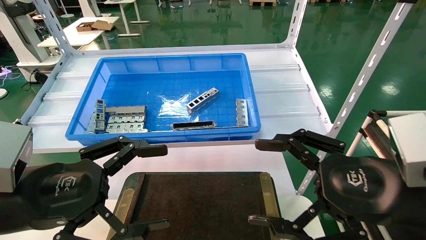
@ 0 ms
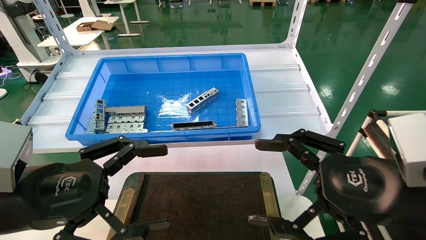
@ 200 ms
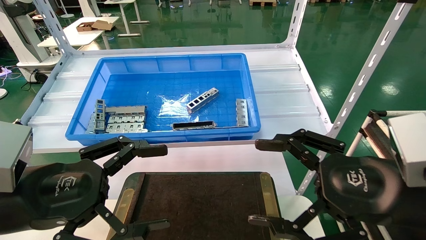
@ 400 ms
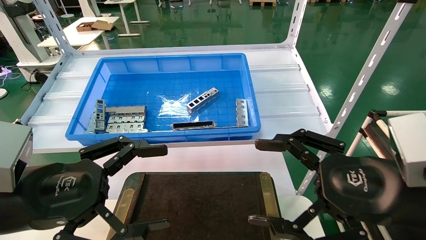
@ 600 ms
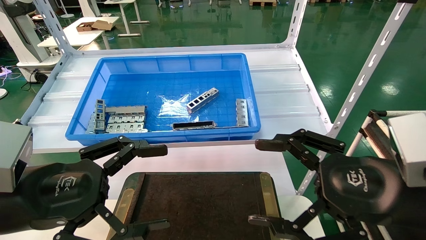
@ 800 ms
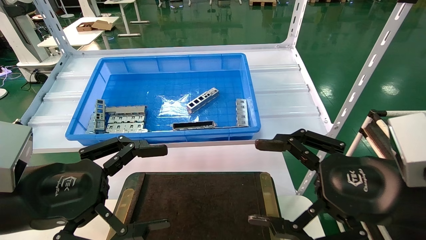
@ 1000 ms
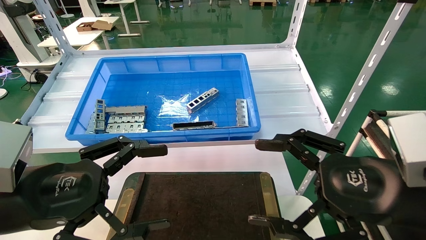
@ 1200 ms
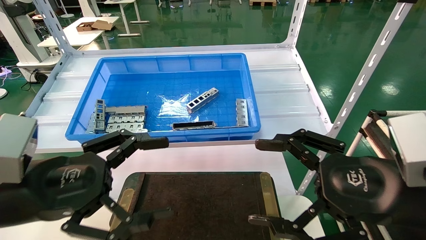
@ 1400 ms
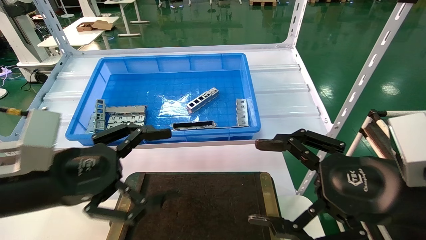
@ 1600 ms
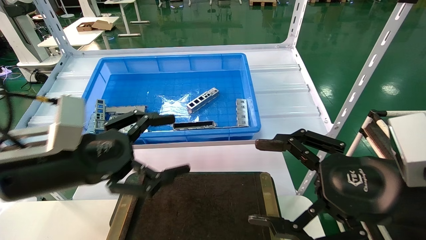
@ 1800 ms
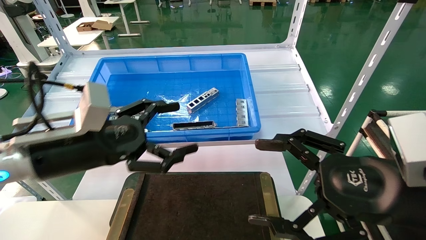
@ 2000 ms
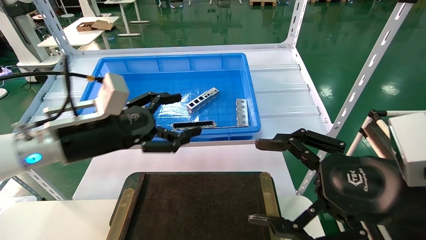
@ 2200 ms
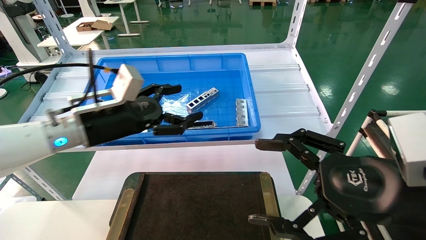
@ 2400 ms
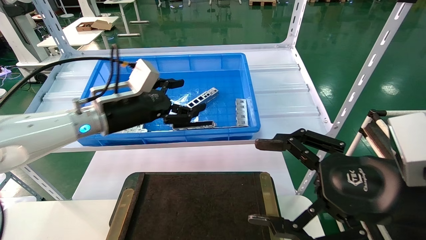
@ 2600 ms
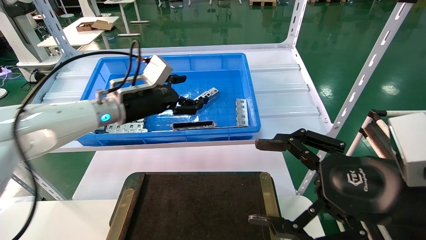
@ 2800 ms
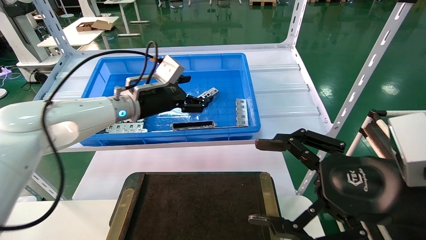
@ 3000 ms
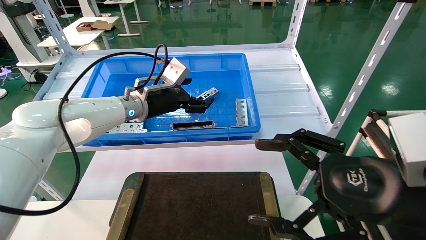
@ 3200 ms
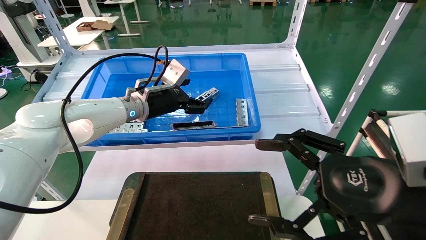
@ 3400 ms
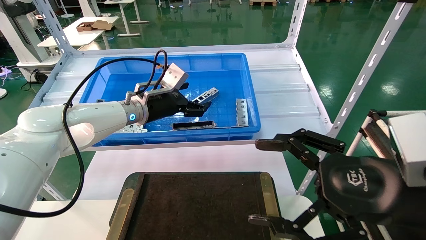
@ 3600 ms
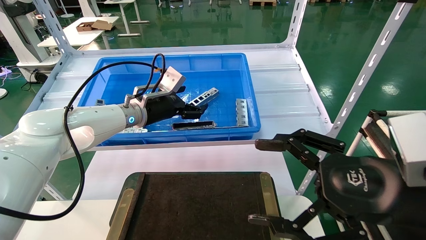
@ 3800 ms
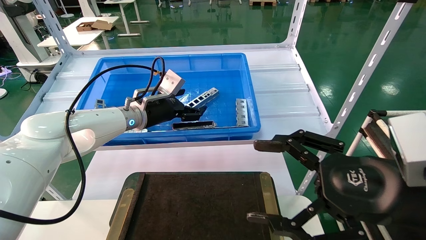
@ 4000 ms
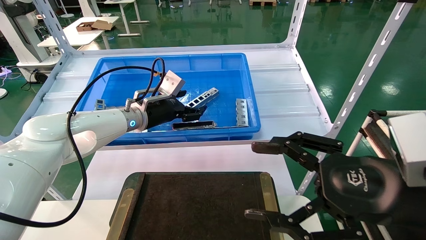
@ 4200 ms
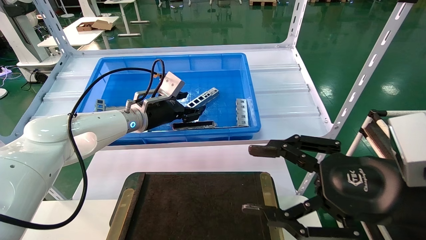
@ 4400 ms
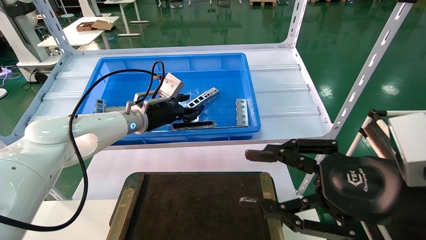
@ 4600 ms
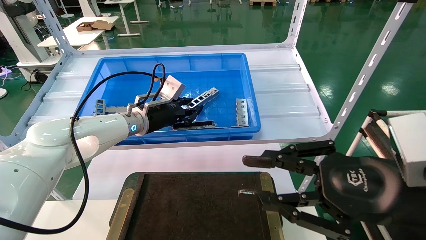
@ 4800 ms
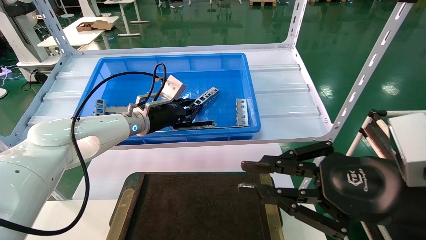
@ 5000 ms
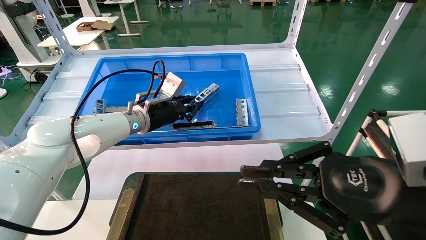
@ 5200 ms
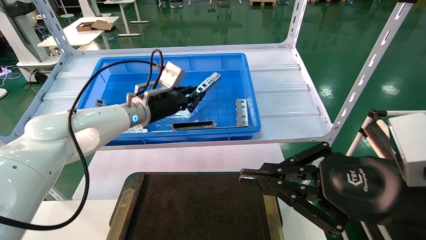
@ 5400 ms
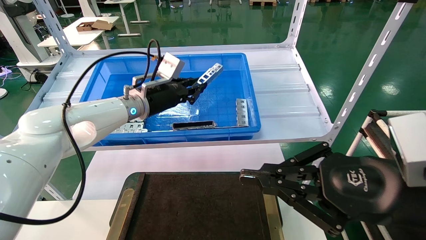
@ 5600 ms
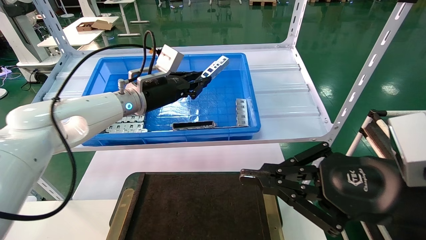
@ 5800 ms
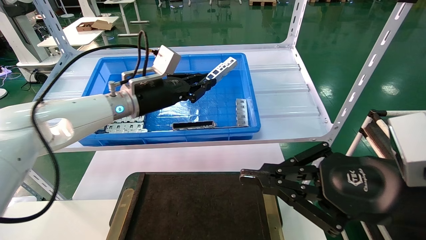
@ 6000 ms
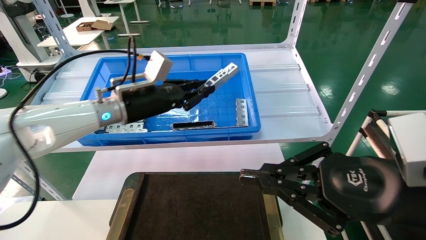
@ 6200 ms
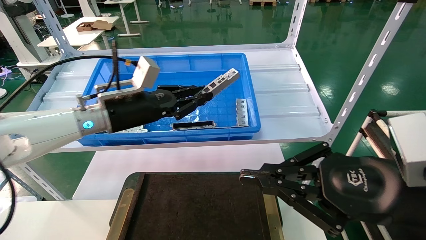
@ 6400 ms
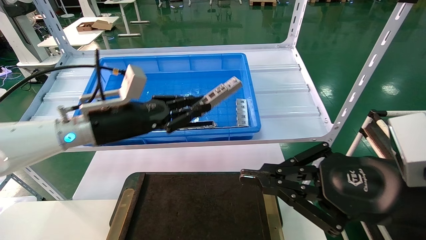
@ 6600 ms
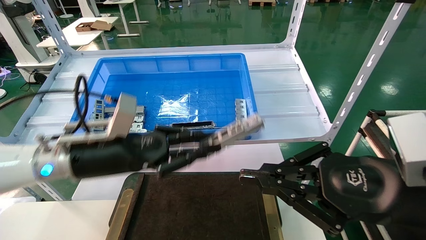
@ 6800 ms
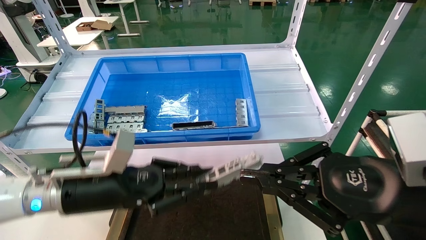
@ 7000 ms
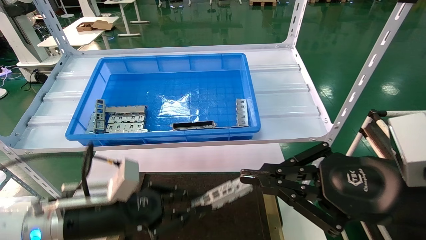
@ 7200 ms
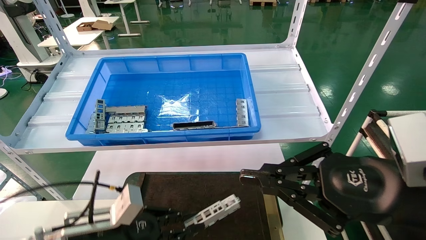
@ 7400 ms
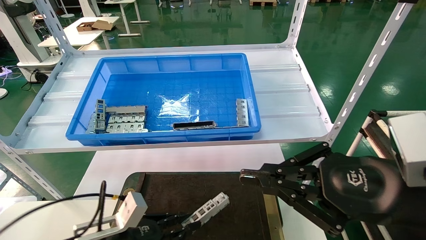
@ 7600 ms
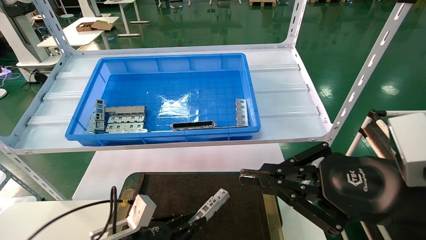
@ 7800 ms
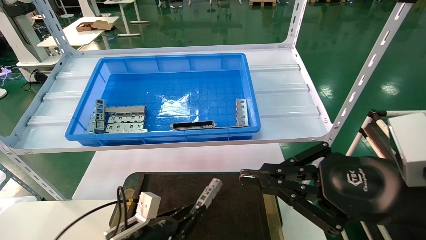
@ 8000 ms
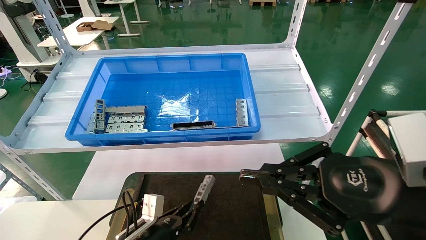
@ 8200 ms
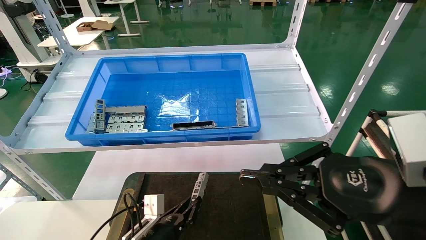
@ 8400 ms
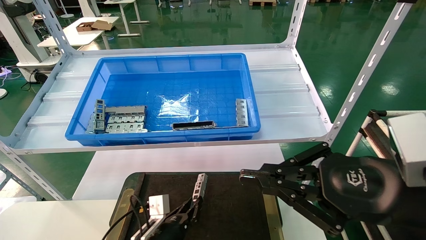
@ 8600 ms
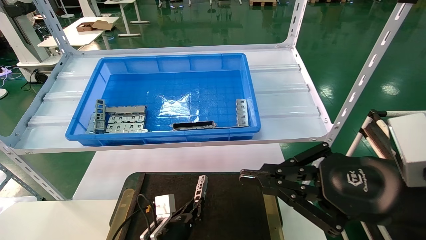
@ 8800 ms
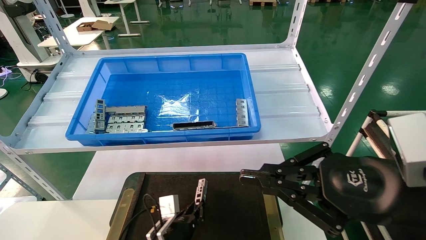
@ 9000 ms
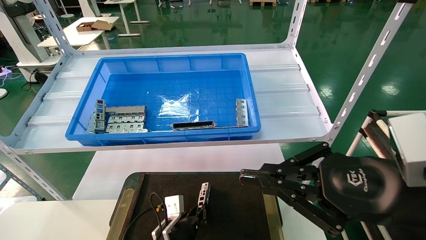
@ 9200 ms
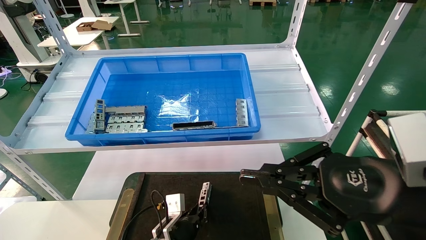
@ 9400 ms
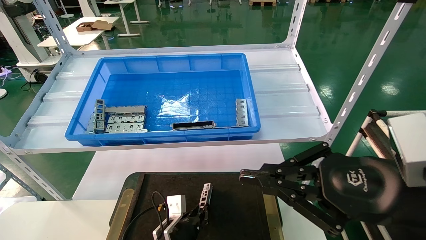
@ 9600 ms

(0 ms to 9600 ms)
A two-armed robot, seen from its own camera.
Task of the whole recording: Grasp the part with one hand and place it on the black container.
Step, 1600 ms - 4800 ms: Pick up the front USB bracket from the feeding area.
0 ms - 1600 ms: The grippers move only a little.
1600 ms - 3200 ms: The left gripper moves forward, roughly 25 cm.
3200 ms - 4800 ms: The left gripper closes up. The right gripper closes.
4800 ms - 6400 ms: The right gripper closes its fingers. The left gripper is displaced backward by about 10 cm, and closes up.
6400 ms - 8000 ms: The left gripper moves downward, roughly 30 cm.
8000 ms - 9600 ms: The left gripper is displaced to the right, downward and forward by some 10 cm.

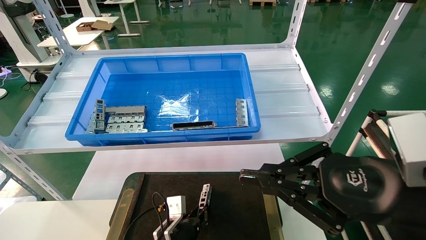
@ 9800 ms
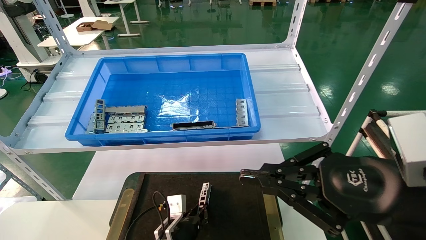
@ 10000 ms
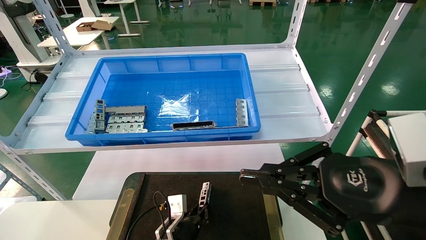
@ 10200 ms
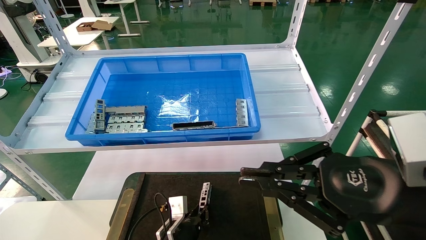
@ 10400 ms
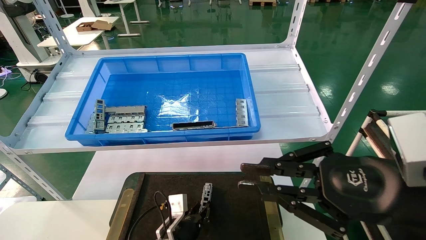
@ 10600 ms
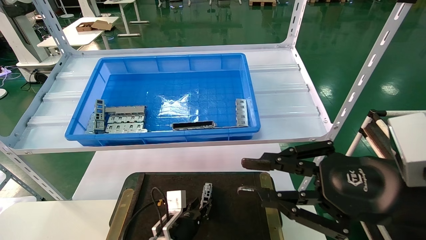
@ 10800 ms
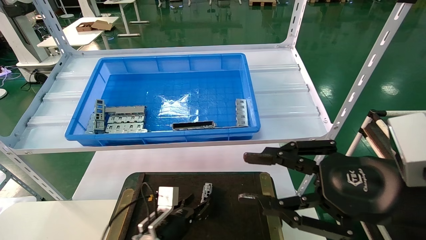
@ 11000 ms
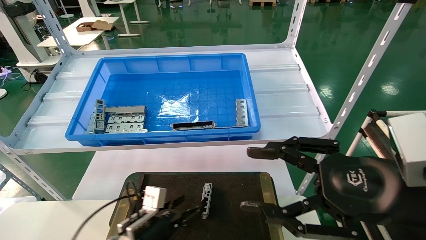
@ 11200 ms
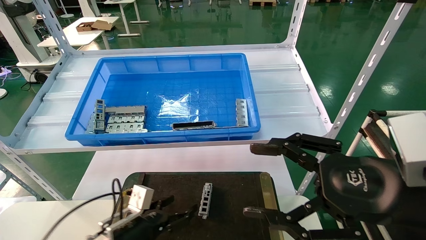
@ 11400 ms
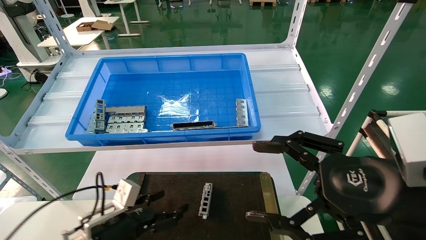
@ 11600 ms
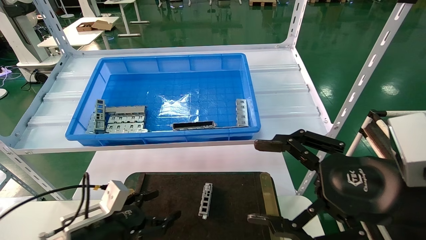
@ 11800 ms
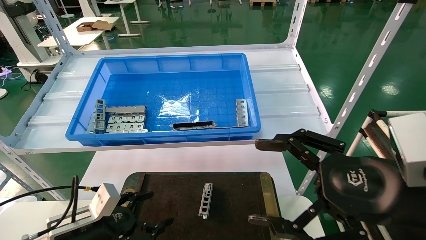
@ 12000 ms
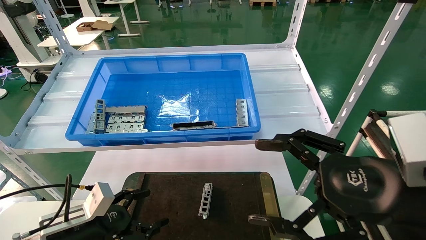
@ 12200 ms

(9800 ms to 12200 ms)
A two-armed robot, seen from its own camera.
Task of the whole recording: Grasp the part with one hand and place it on the black container.
9800 ms - 11000 ms: The left gripper shifts by about 5 cm, and opens up.
11000 ms - 12200 ms: The left gripper is displaced to the left, upward and backward by some 20 cm, and opens its fingers. The right gripper opens.

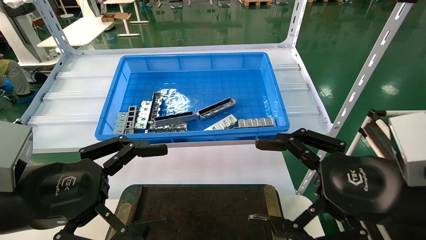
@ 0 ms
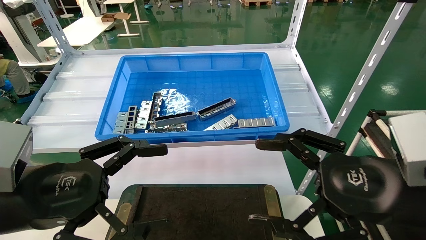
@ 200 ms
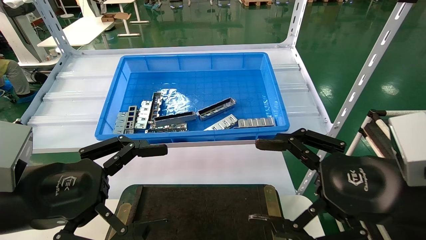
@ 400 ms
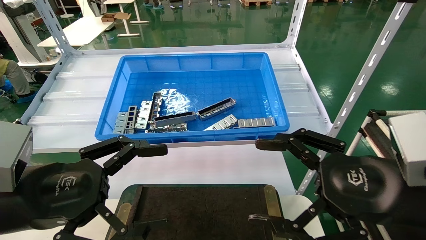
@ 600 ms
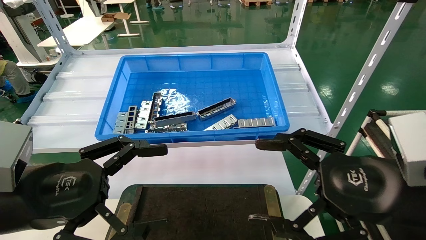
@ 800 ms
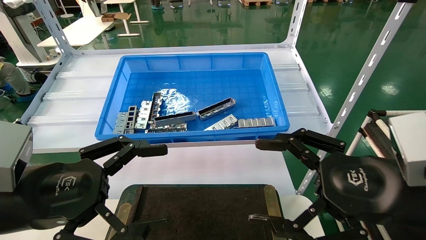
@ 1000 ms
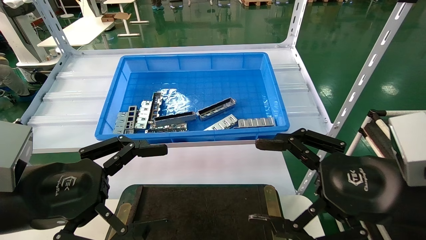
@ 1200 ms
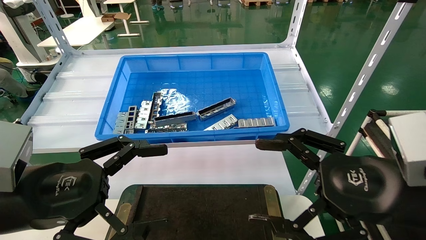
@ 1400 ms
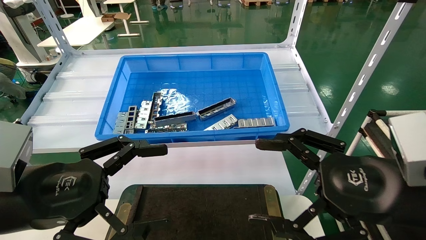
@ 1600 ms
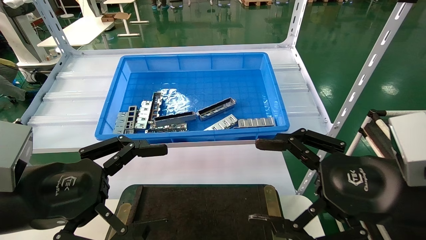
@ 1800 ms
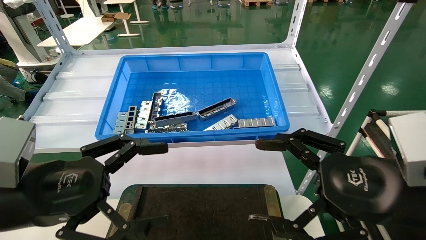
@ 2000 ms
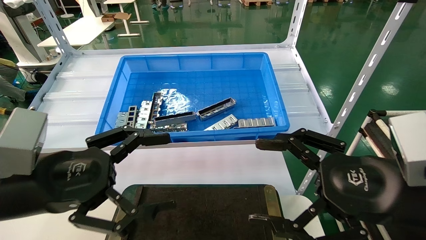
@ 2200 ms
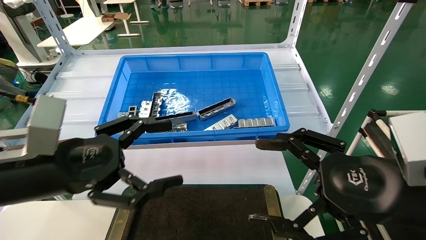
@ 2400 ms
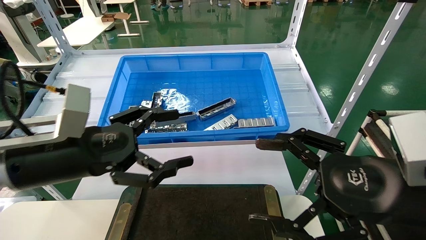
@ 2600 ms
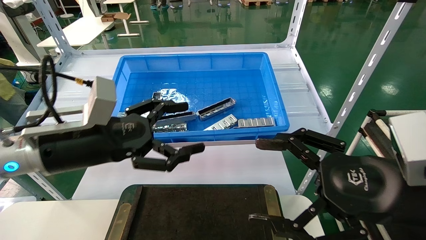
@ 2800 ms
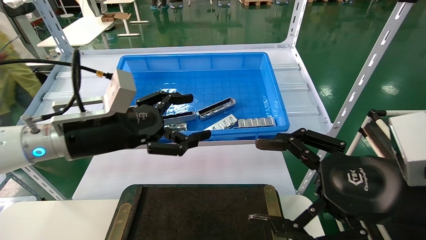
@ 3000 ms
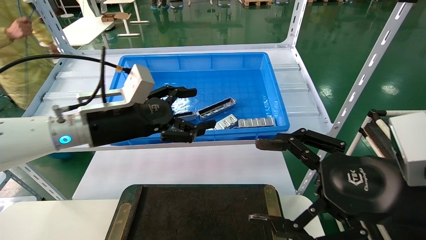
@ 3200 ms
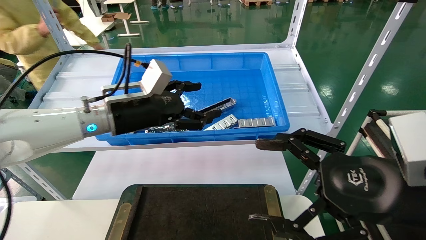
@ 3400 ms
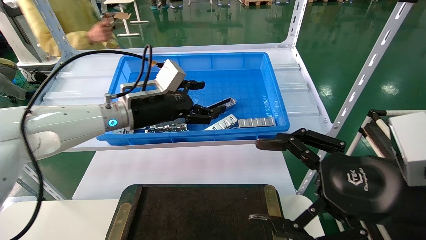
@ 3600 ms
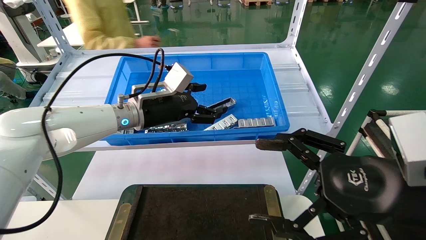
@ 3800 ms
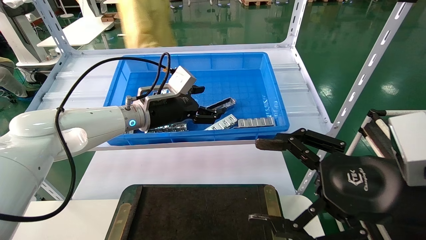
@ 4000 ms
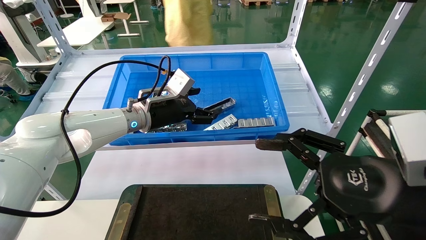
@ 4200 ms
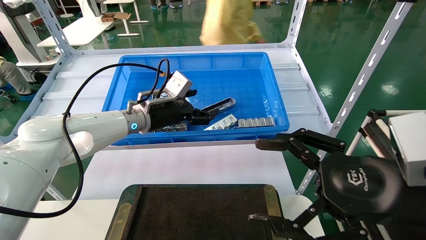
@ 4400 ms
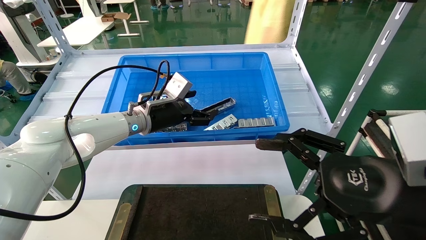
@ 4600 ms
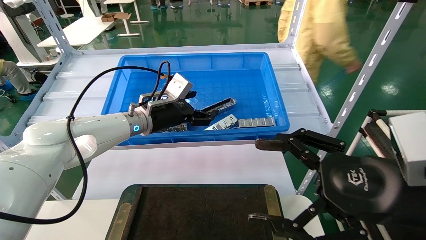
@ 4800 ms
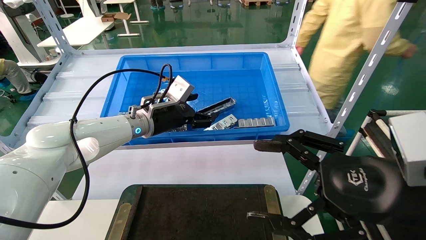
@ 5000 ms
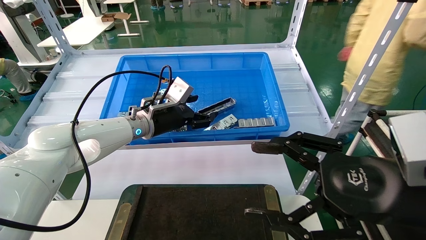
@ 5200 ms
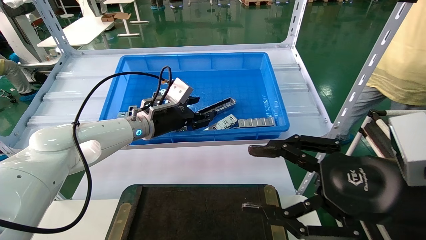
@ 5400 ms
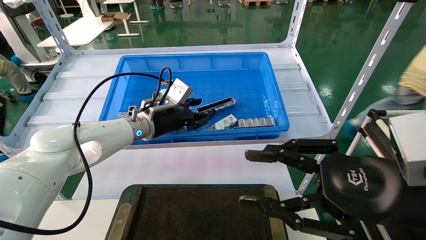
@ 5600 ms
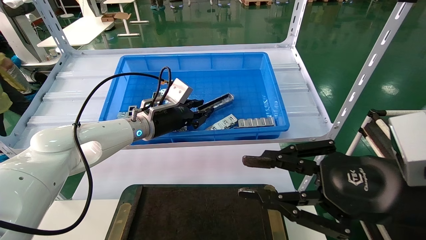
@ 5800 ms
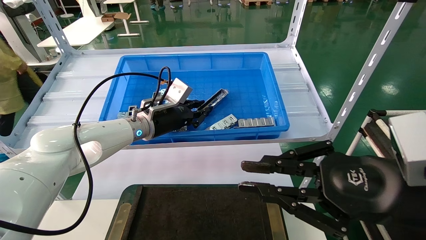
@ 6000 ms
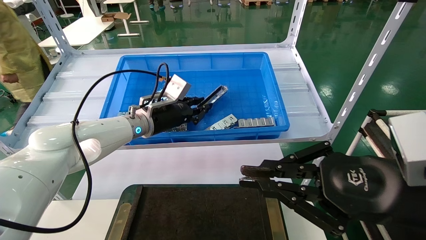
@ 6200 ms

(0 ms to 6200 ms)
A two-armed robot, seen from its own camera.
Task of the whole recording: Grasp the part with one hand and place it on the black container.
Step, 2200 ms - 5800 ms: Pick up the front USB bracket from the feeding area.
0 ms - 1600 ms: The two grippers keep their place.
1600 ms - 3200 ms: The left gripper shifts about 15 cm forward.
3200 ms - 4600 ms: The left gripper is displaced forward by some 10 cm.
4600 ms - 6200 ms: The right gripper closes up. Meanwhile the left gripper closes.
